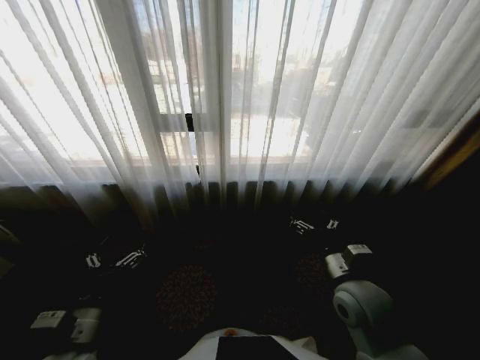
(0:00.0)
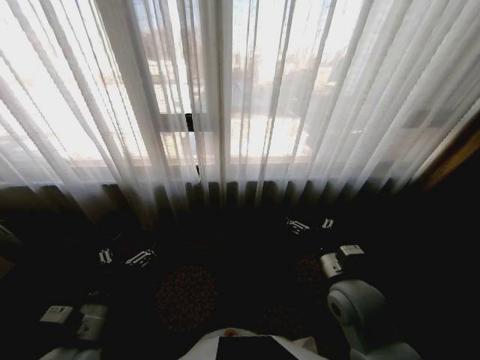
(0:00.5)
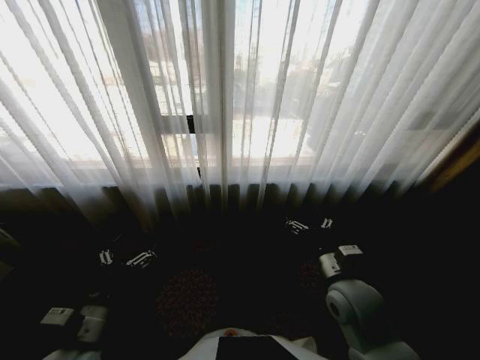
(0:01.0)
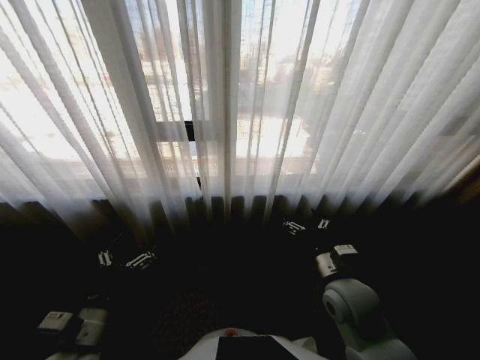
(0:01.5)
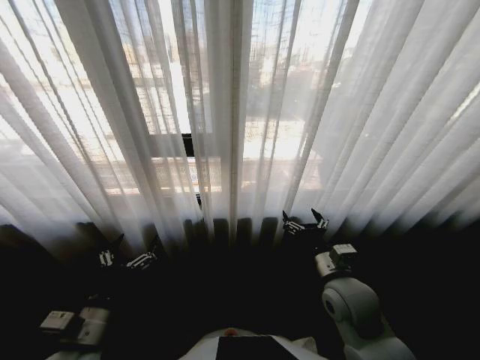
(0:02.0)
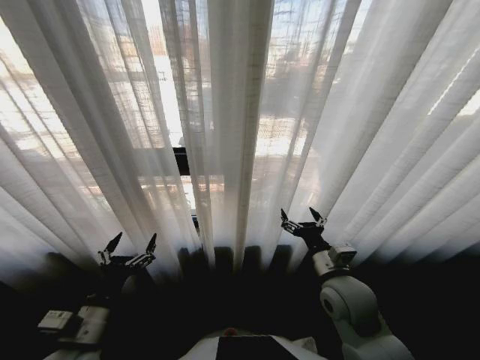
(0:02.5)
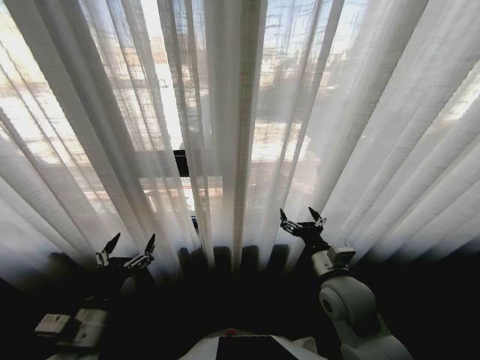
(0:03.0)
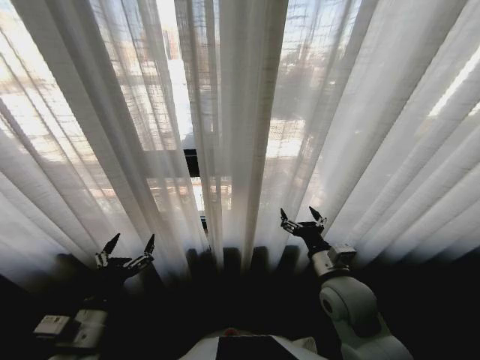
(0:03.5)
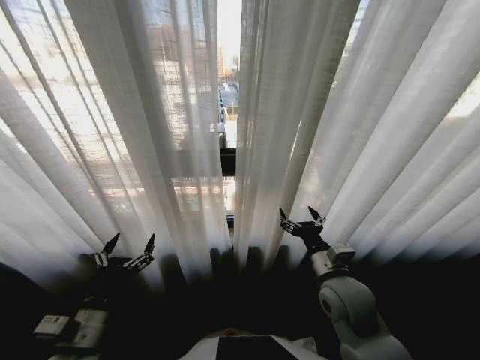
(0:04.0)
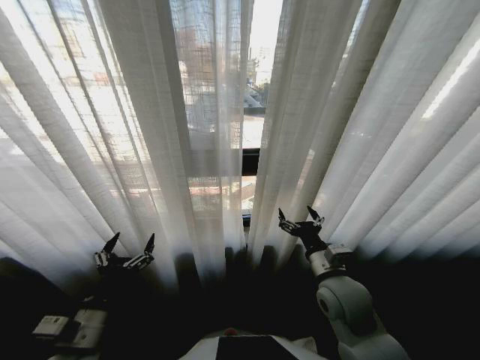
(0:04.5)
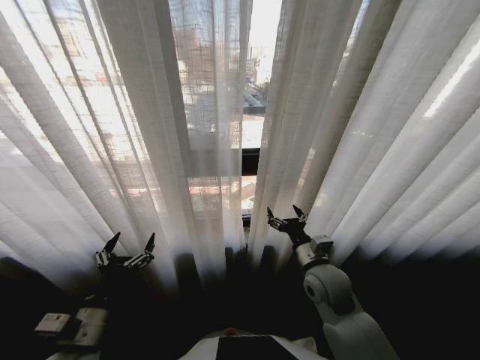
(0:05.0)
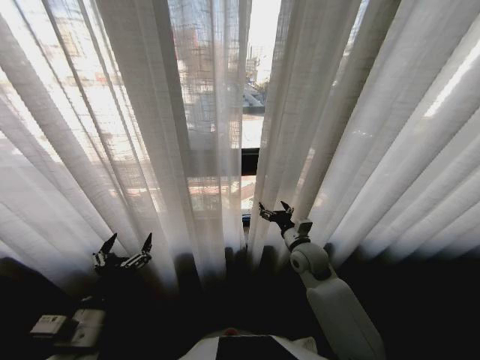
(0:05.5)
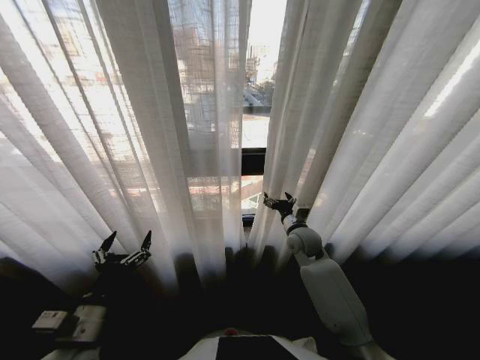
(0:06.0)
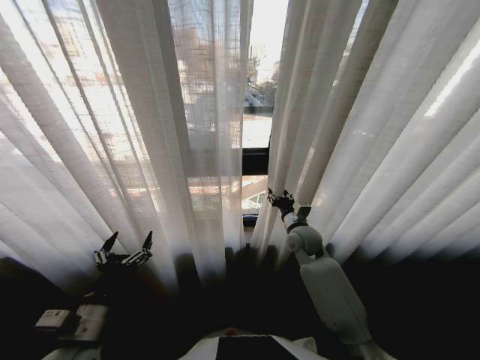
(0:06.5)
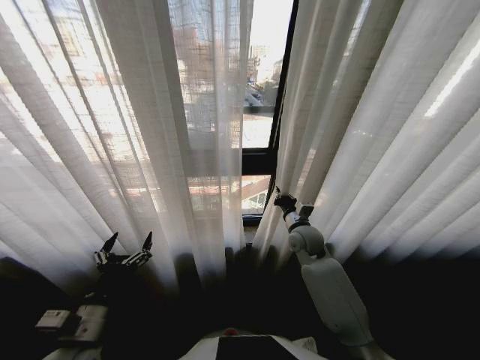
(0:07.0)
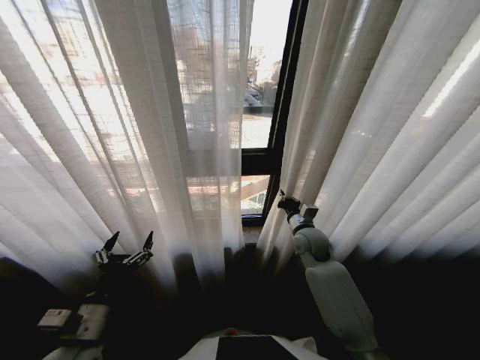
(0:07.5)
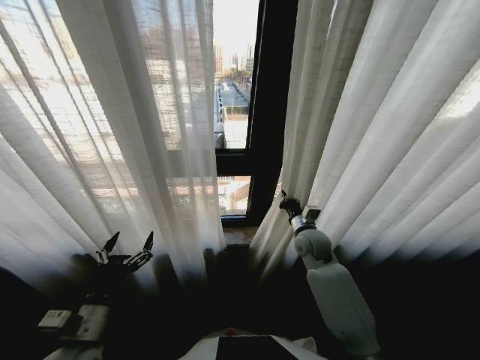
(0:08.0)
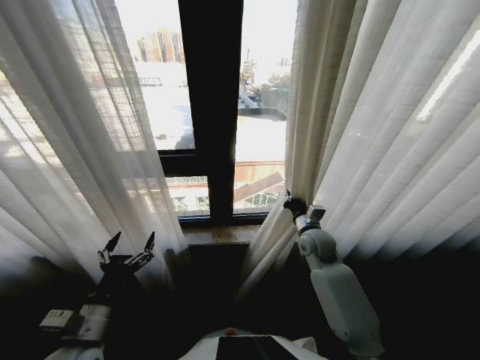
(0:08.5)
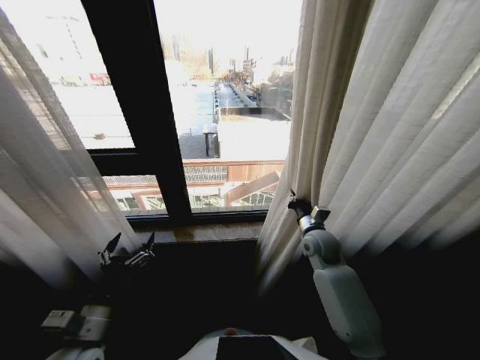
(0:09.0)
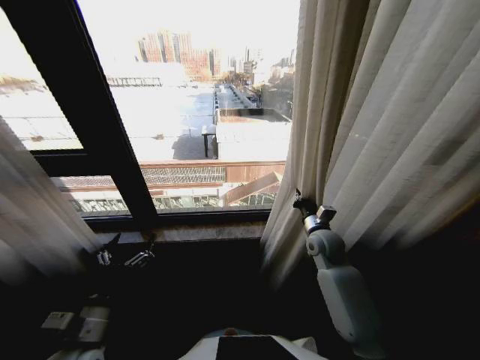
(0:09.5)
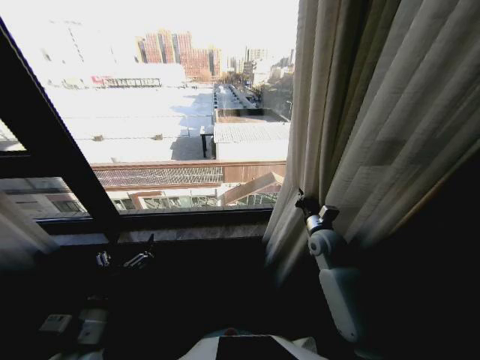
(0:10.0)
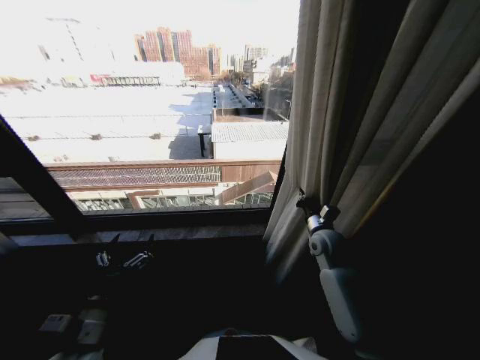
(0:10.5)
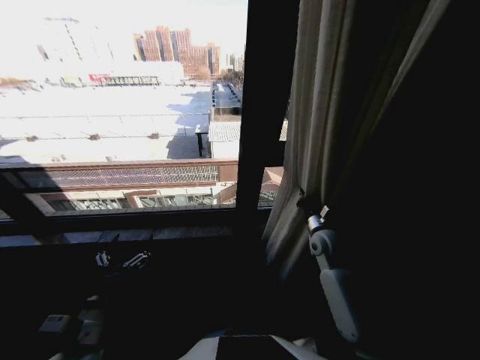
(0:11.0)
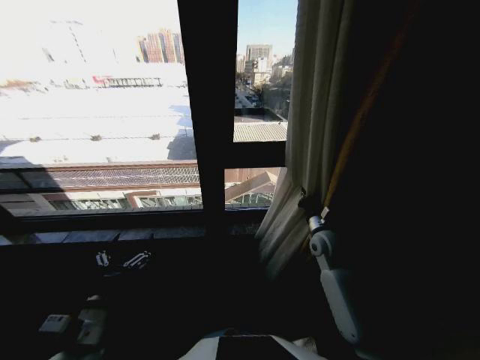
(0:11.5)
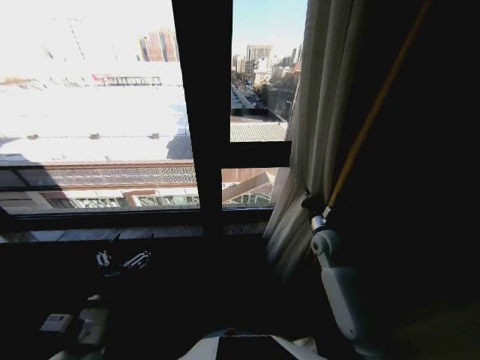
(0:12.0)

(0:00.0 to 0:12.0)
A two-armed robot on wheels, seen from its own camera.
Task of the whole recording: Open the curtains by pulling them apart, changing their state from closed to fully open.
0:04.0 - 0:06.0: The right gripper heads forward, covering about 15 cm.
0:06.0 - 0:08.0: The right gripper closes its fingers.

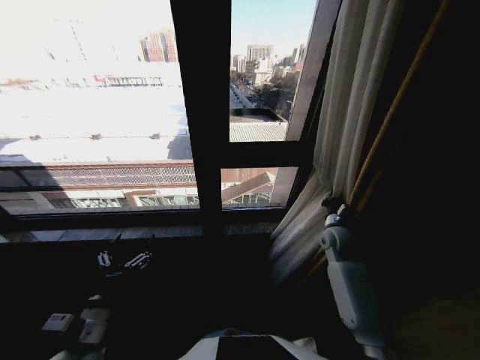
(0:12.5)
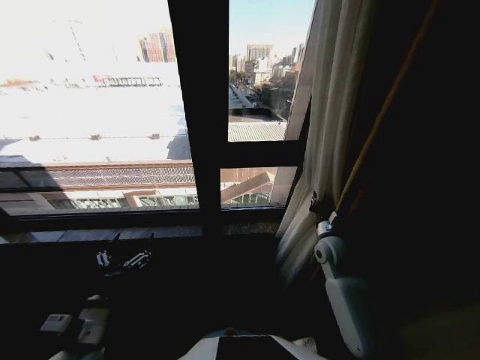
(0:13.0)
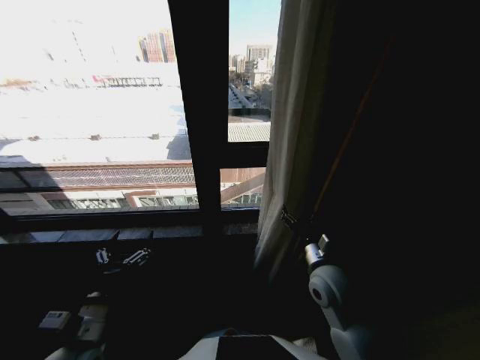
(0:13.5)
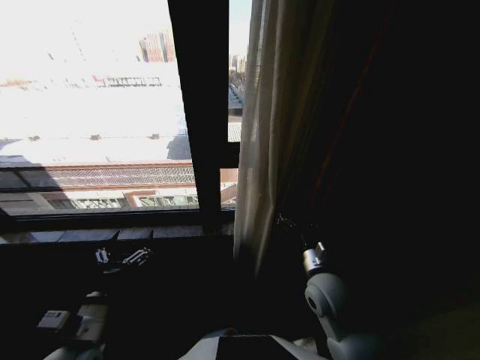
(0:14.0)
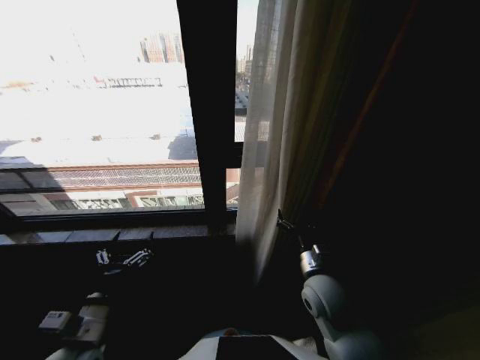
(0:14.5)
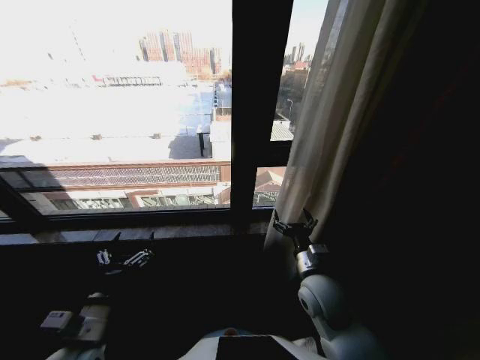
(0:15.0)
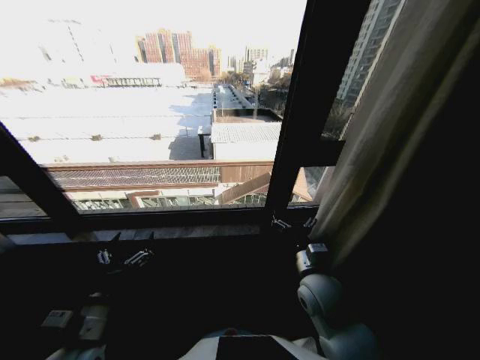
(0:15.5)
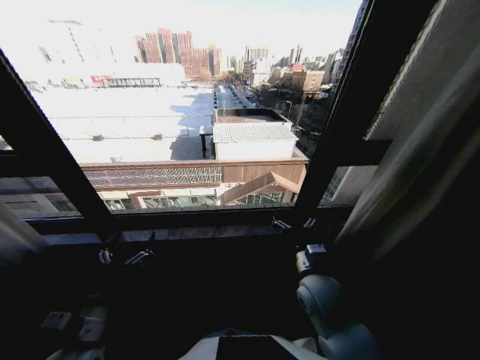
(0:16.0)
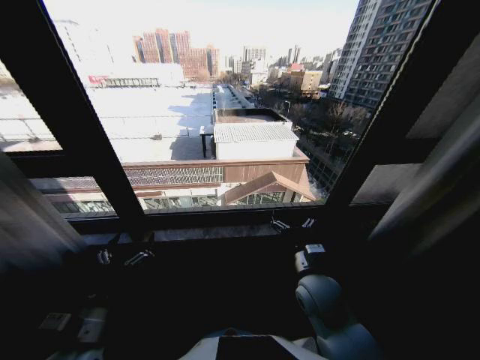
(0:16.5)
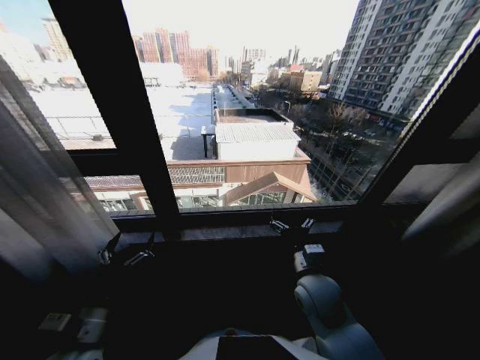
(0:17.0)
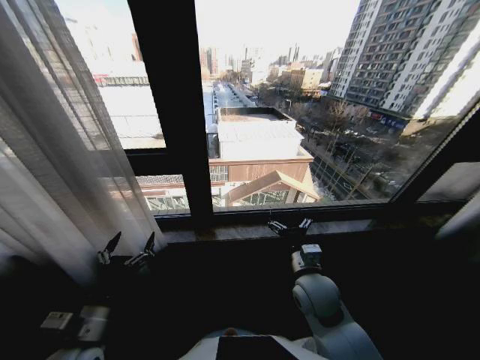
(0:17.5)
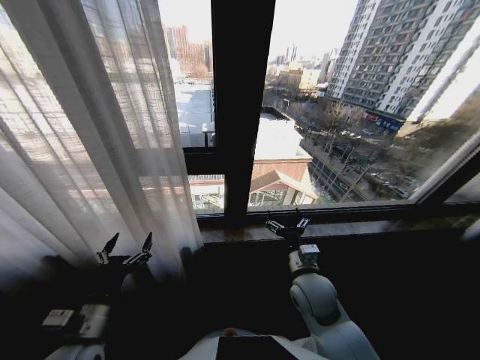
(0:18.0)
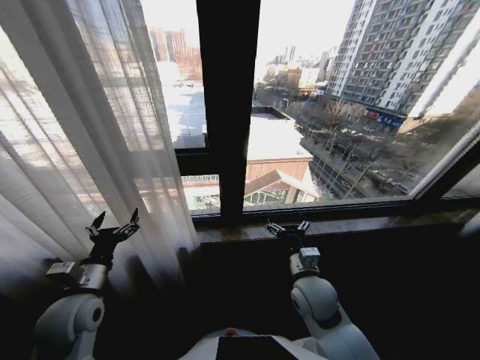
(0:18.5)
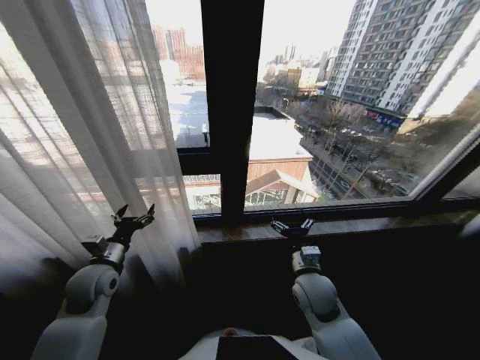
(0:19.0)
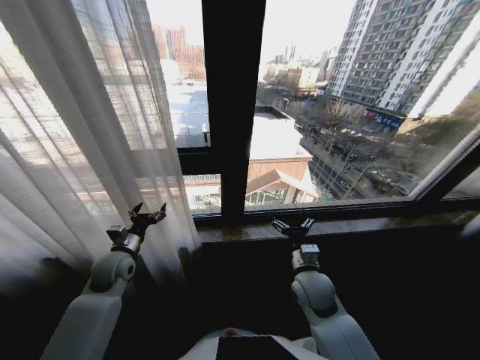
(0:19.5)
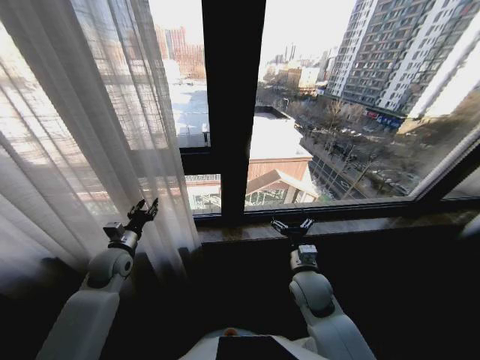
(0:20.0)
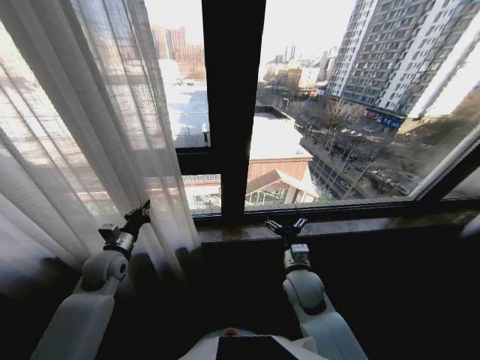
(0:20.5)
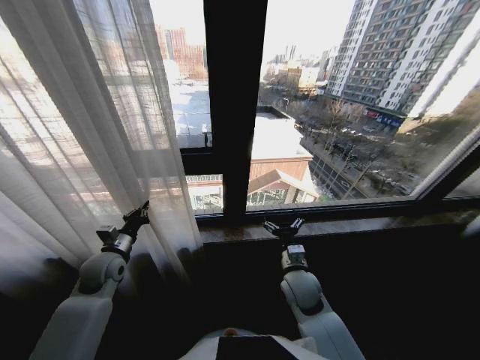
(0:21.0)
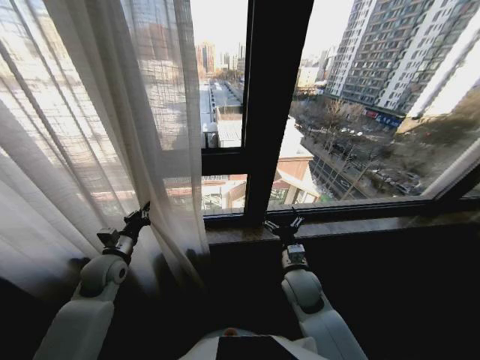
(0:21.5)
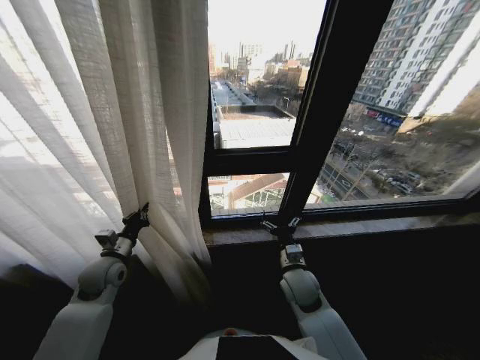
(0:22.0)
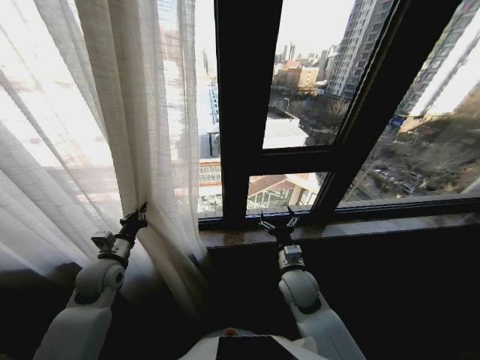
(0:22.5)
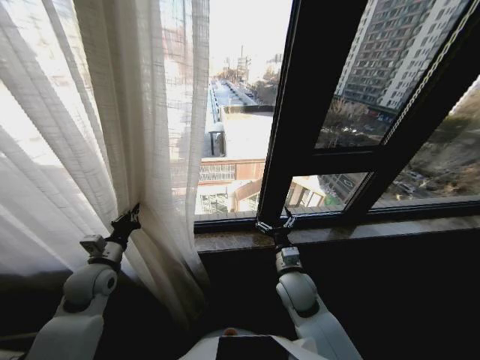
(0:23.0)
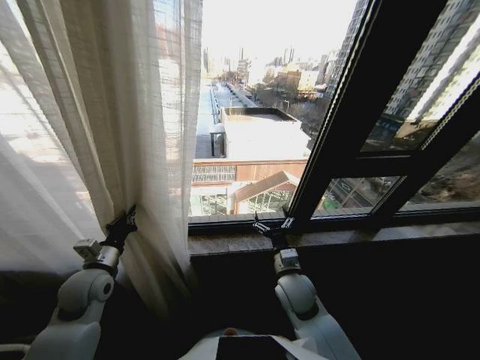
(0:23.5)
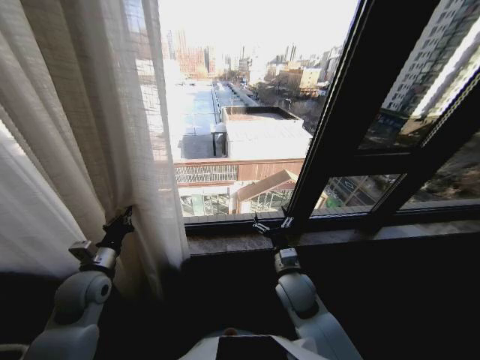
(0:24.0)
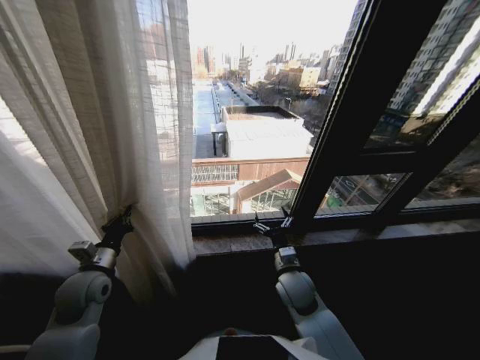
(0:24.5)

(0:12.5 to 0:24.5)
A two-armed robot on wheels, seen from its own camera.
Task of the whole recording: Open the curtains by pulling them apart, changing their state from closed to fully open.
0:12.5 - 0:14.5: The right gripper shifts about 20 cm backward and to the left, and opens up.
0:16.5 - 0:18.5: The left gripper is displaced forward by some 10 cm.
0:18.5 - 0:20.5: The left gripper moves forward, some 10 cm, and closes its fingers.

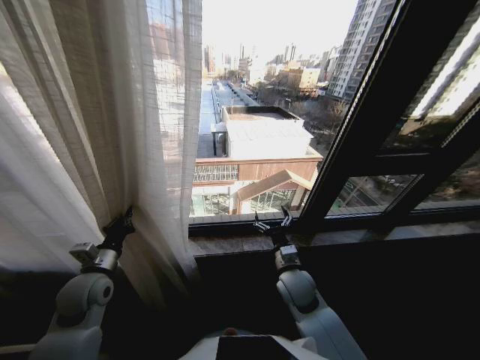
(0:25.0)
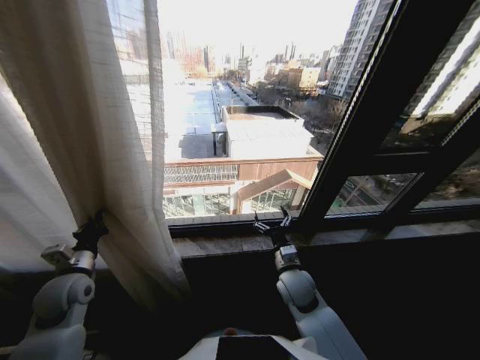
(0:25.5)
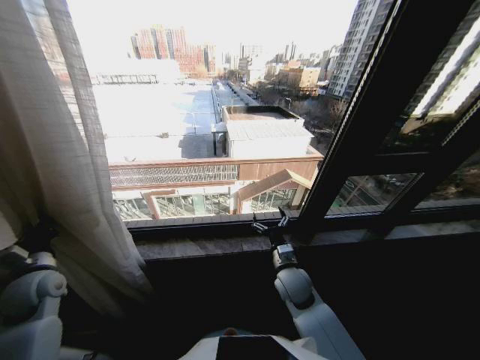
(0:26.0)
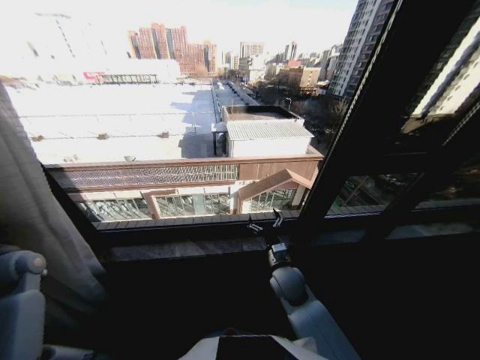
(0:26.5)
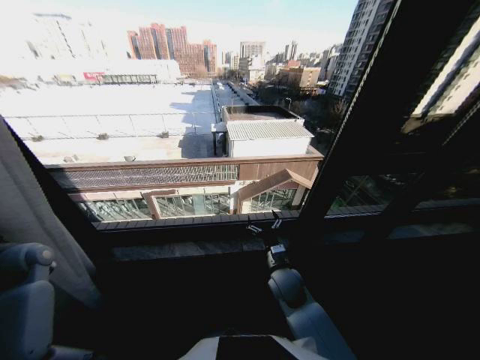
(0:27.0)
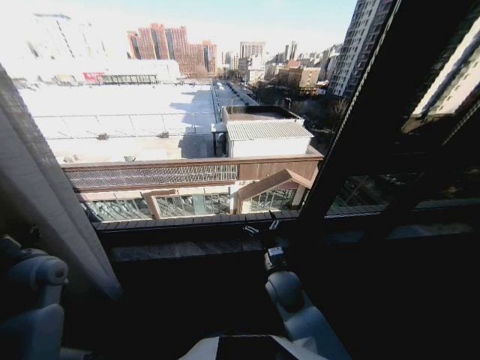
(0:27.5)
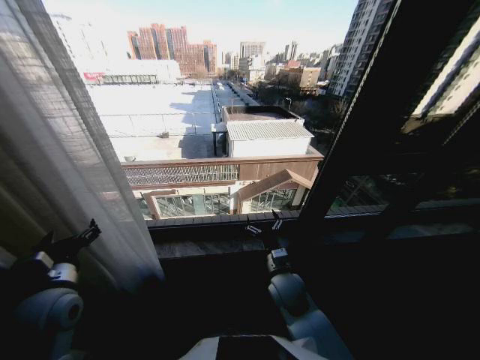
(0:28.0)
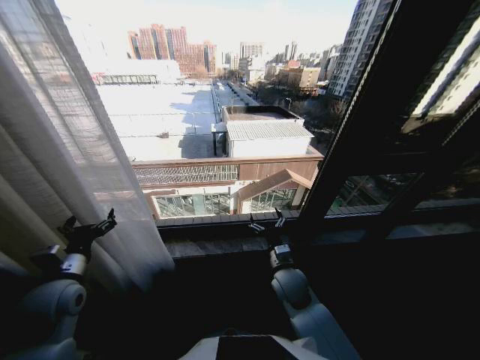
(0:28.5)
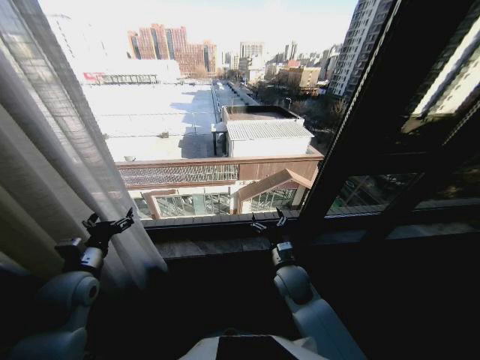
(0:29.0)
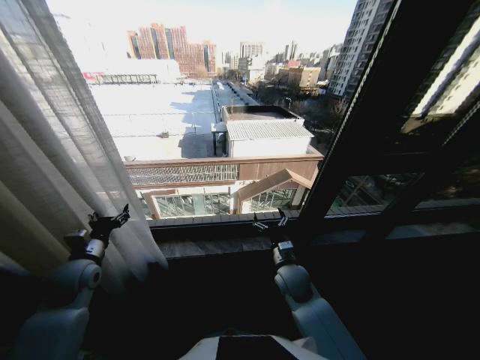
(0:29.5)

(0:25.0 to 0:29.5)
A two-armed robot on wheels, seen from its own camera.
Task of the whole recording: Open the curtains by pulling them apart, changing their state from closed to fully open.
0:25.0 - 0:27.0: The left gripper goes about 20 cm to the left.
0:27.0 - 0:29.5: The left gripper moves to the right, roughly 15 cm, and opens.
